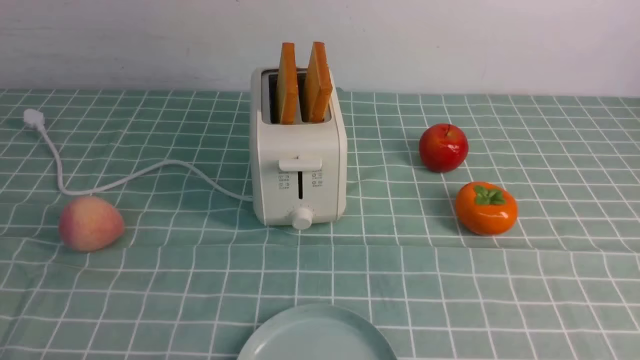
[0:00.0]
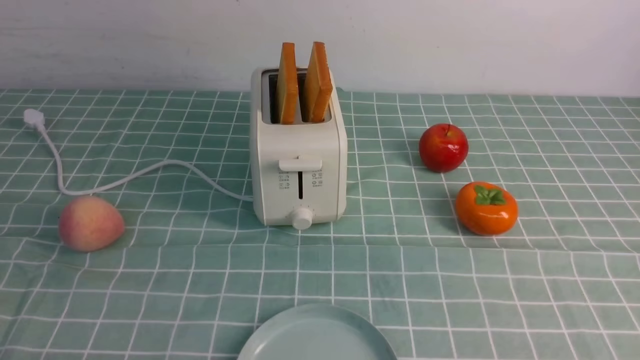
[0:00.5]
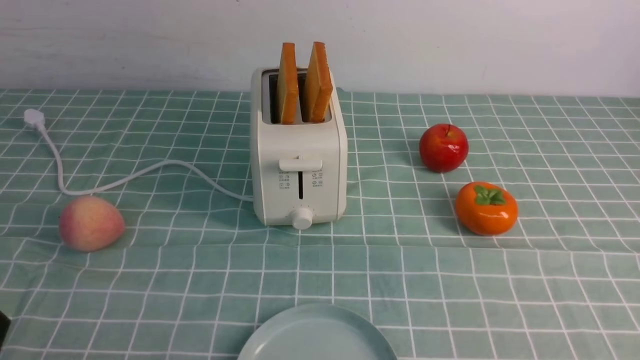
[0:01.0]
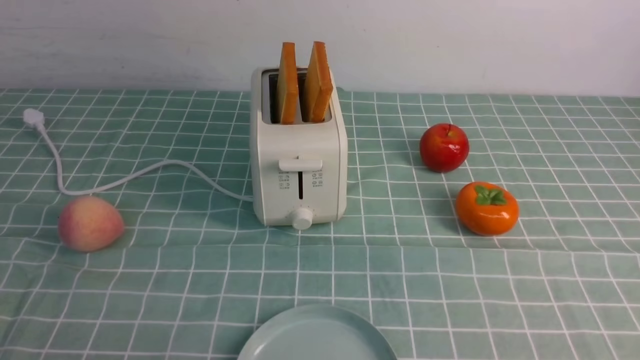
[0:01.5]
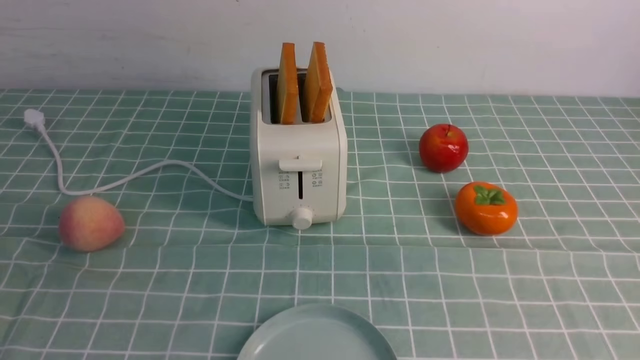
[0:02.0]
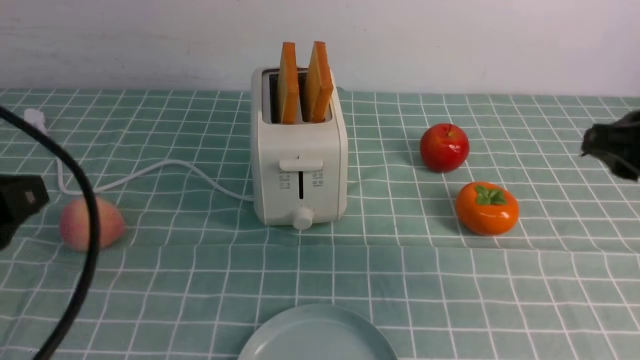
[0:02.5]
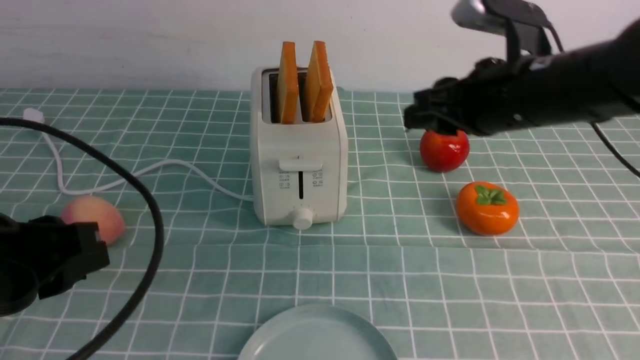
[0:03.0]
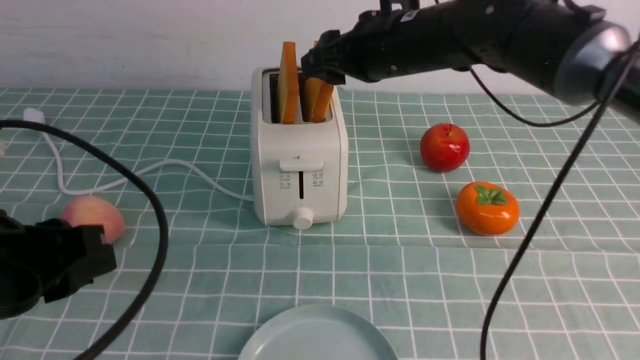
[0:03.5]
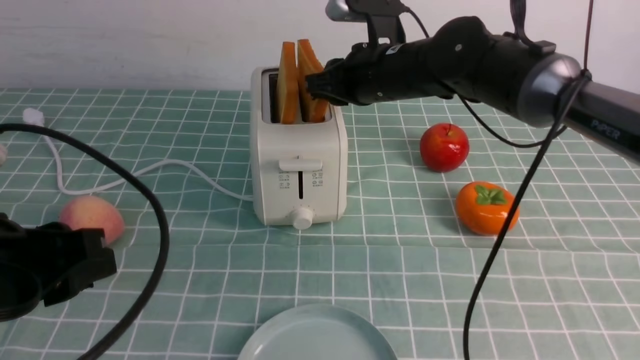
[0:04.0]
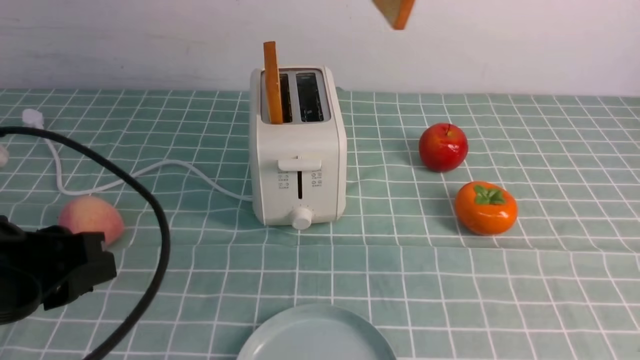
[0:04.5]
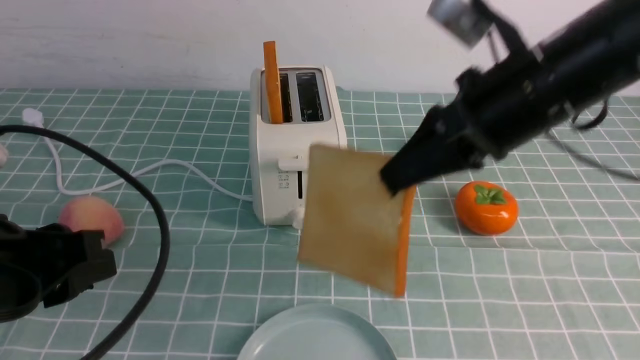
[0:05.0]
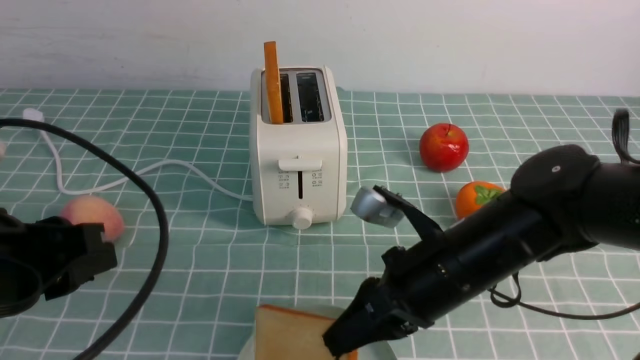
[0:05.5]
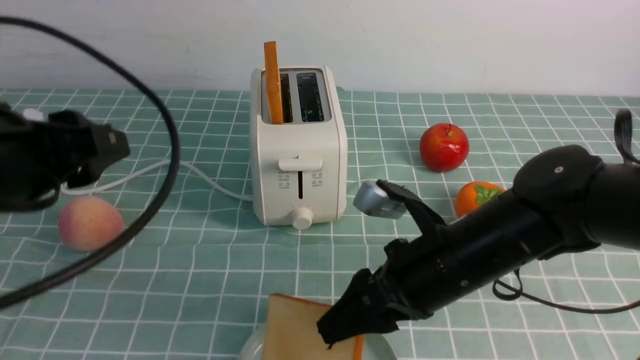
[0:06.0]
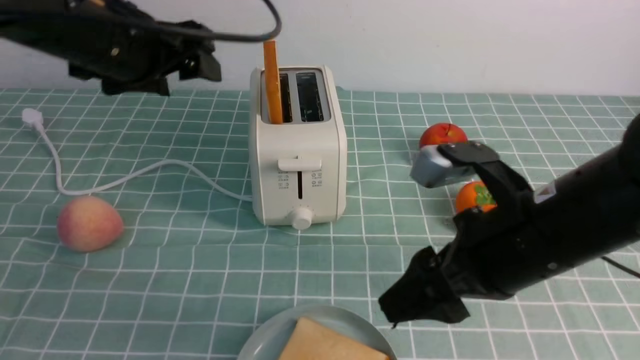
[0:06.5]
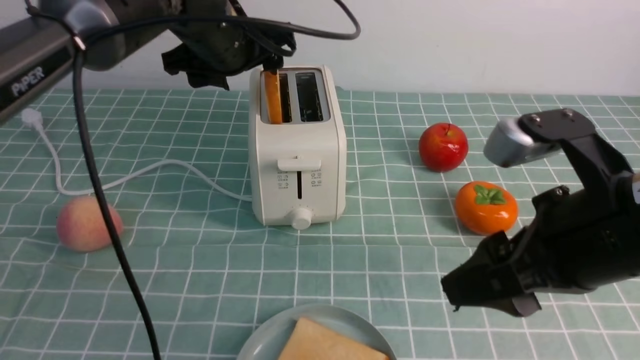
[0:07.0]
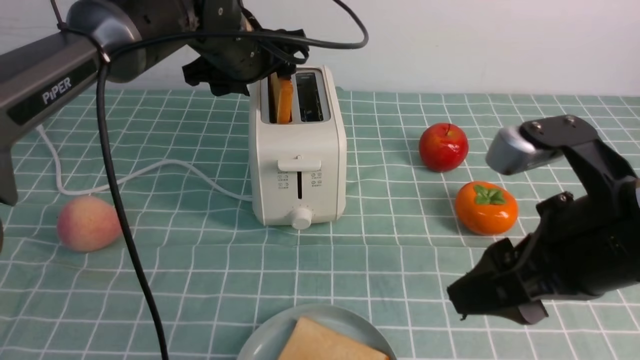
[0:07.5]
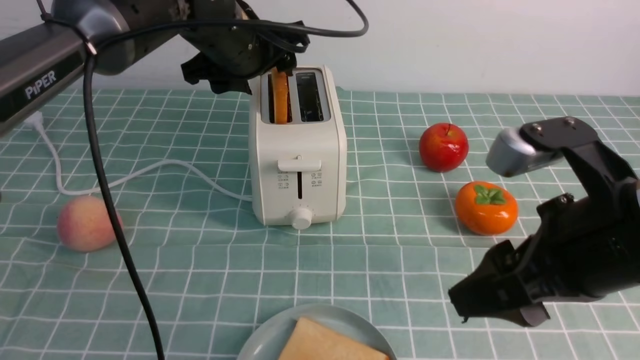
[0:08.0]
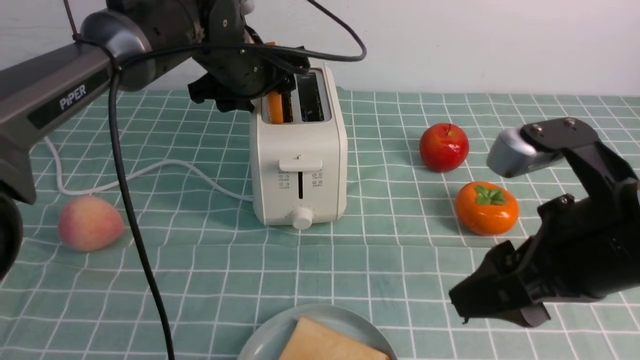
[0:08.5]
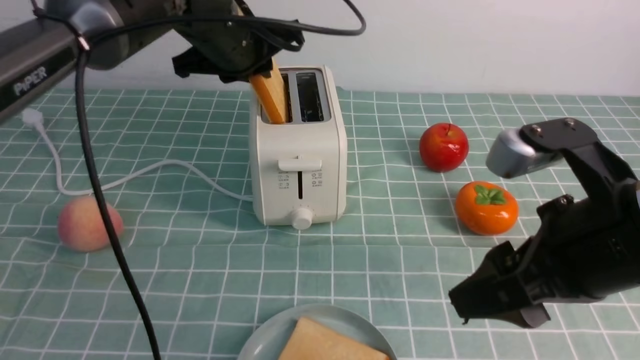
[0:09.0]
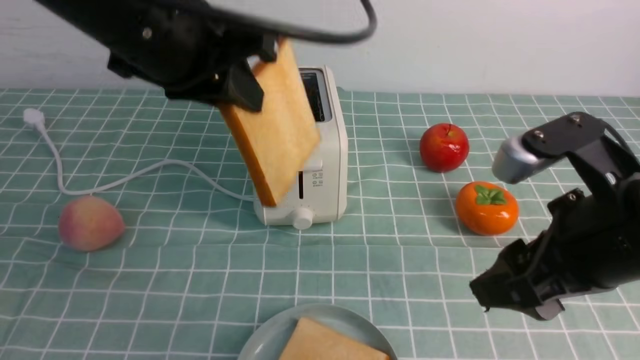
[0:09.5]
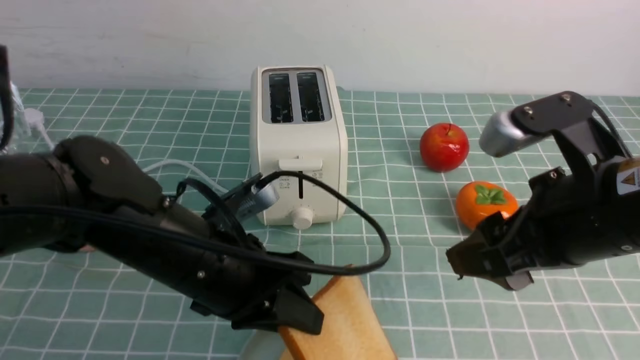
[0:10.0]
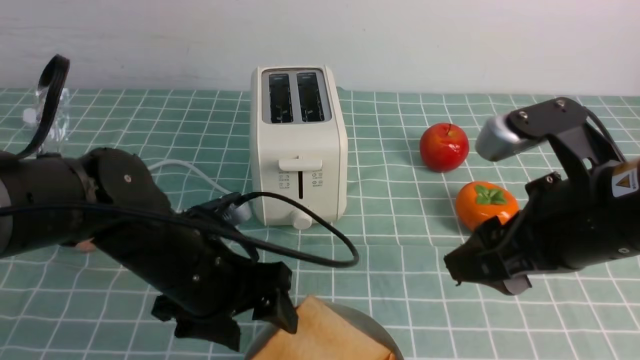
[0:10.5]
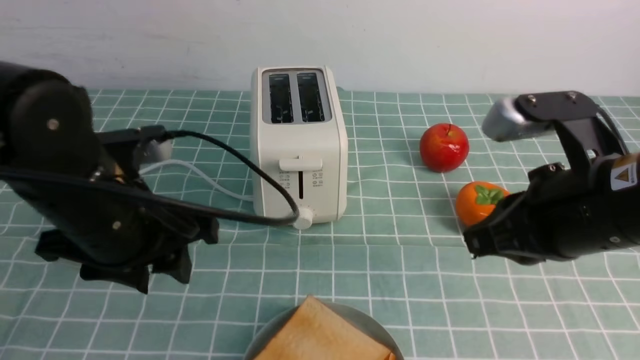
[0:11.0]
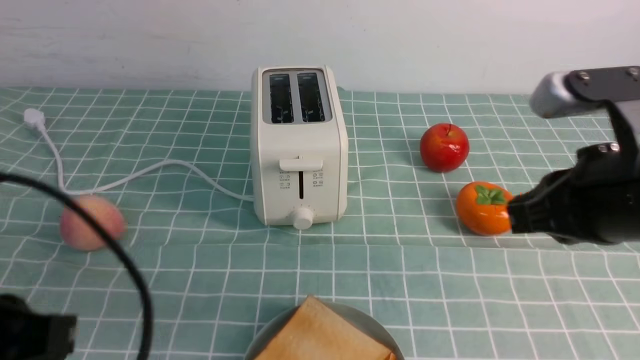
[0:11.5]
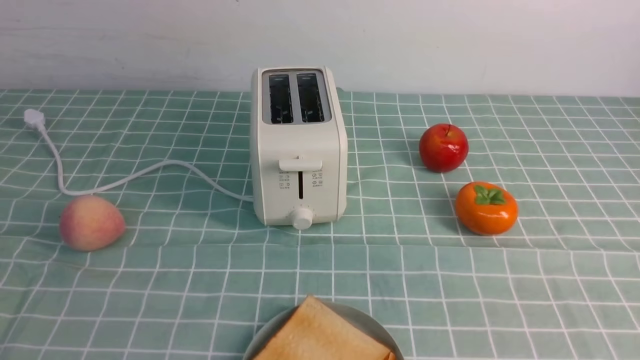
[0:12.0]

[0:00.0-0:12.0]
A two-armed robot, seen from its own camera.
Task of the whole recording: take toasted bread from bread machine on blue coffee table place on plate.
Step, 0:00.0 to 0:04.0: use the right arm to take out a slice of bread.
Step, 0:04.5 to 0:06.0: use the right arm to put a slice of bread into the plate.
Step, 0:06.5 to 0:09.0: use the left arm to take out a slice of bread.
Step, 0:09.5 to 0:10.5: use the left arm to put a slice of bread into the empty plate.
0:02.0 to 0:04.0: The left gripper moves forward and downward, approximately 15 cm; the right gripper moves forward and to the left, about 40 cm.
0:04.0 to 0:06.0: The left gripper goes approximately 5 cm forward; the right gripper heads backward and downward, covering roughly 20 cm, and opens.
0:06.0 to 0:08.0: The right gripper heads upward, to the right and backward, covering some 15 cm, while the left gripper is displaced forward and to the right by roughly 25 cm.
0:08.0 to 0:10.0: The left gripper shifts about 20 cm backward and downward, and closes its fingers.
0:10.0 to 0:12.0: The left gripper moves backward and to the left, approximately 25 cm, and opens and closes again, while the right gripper shifts some 20 cm backward and to the right, and closes up.

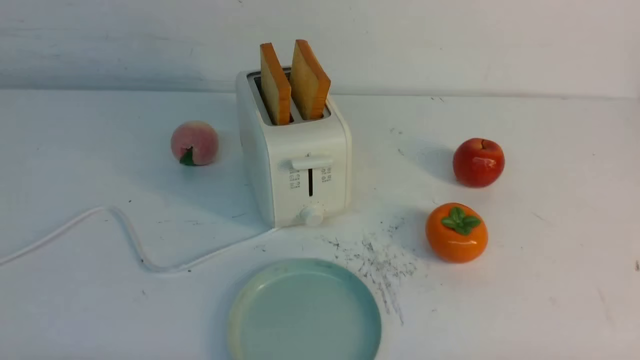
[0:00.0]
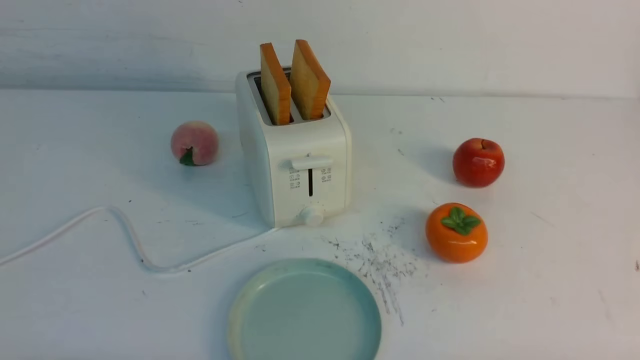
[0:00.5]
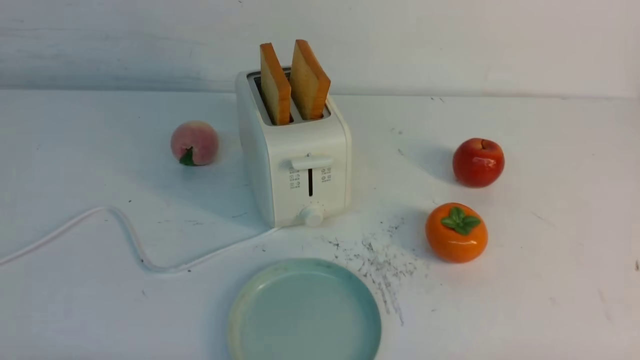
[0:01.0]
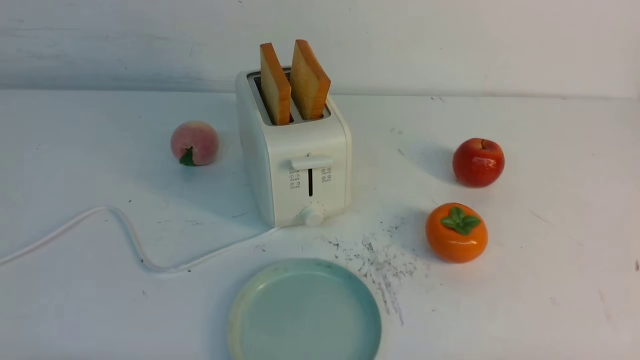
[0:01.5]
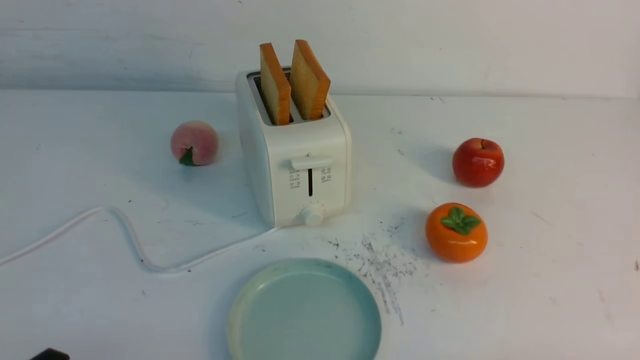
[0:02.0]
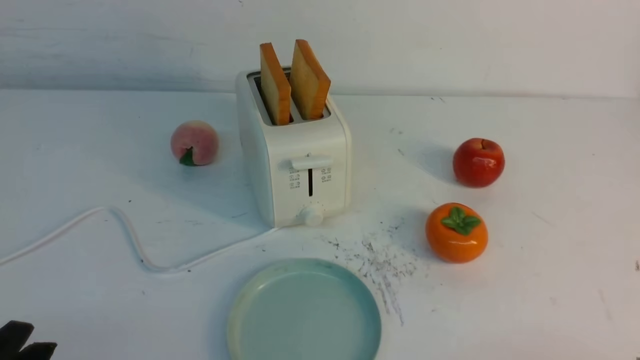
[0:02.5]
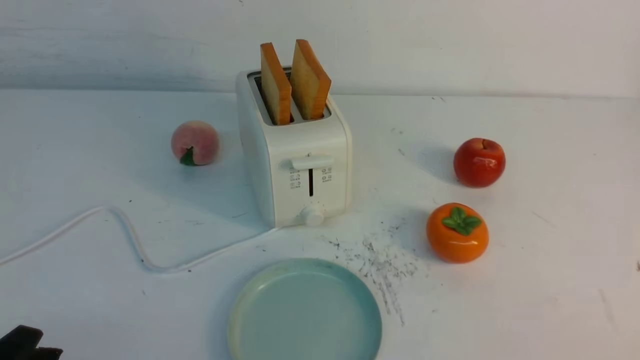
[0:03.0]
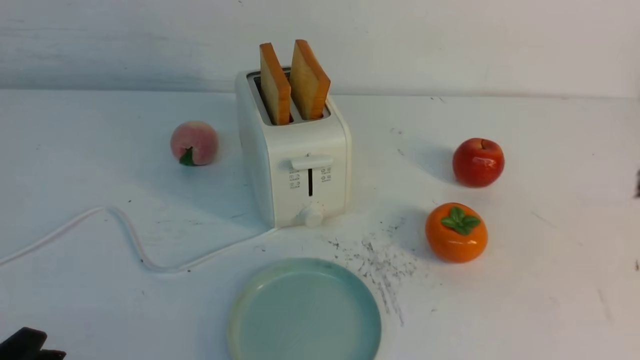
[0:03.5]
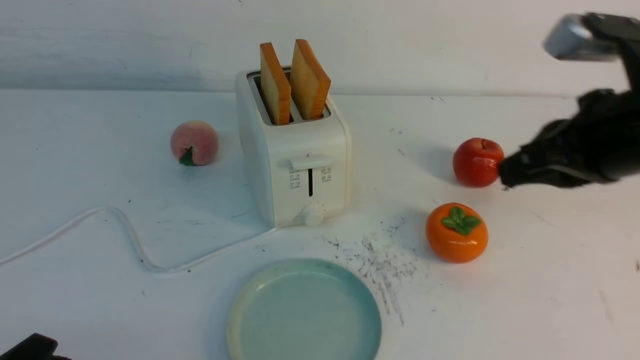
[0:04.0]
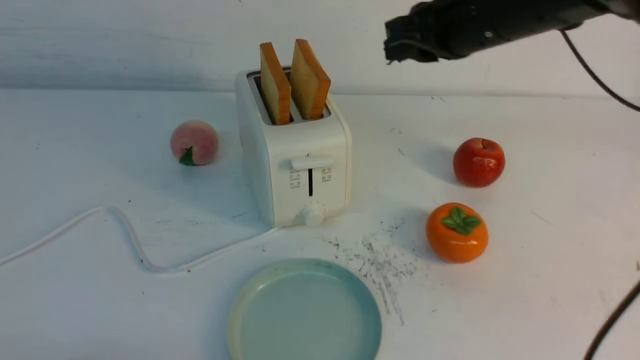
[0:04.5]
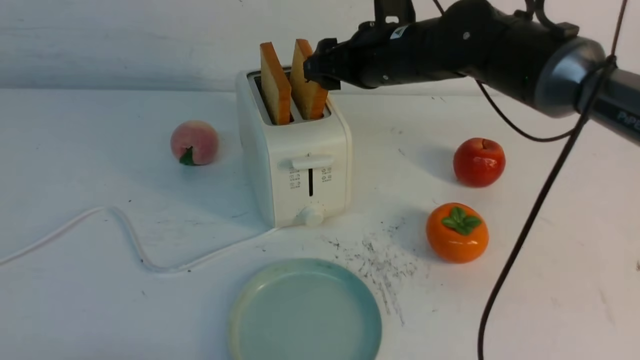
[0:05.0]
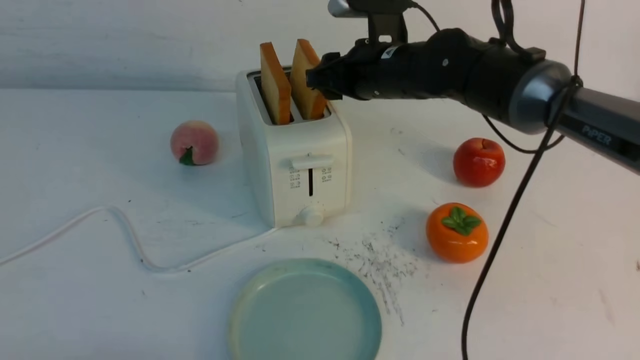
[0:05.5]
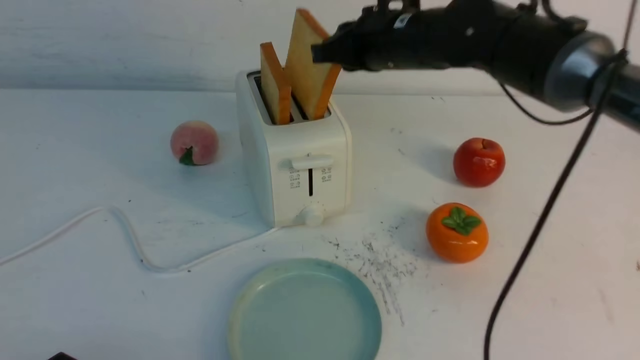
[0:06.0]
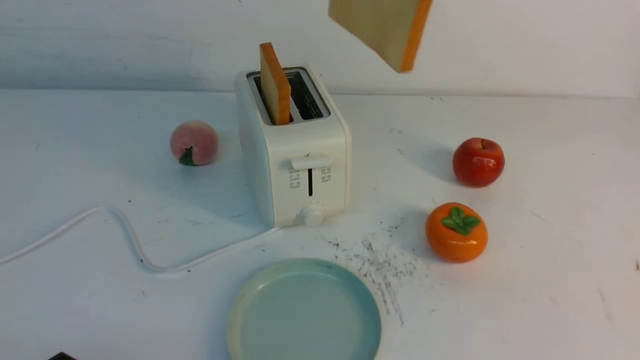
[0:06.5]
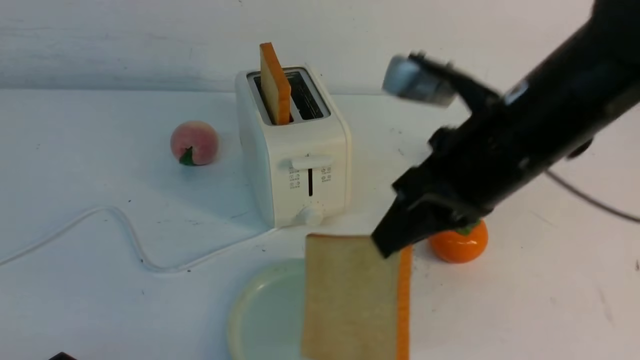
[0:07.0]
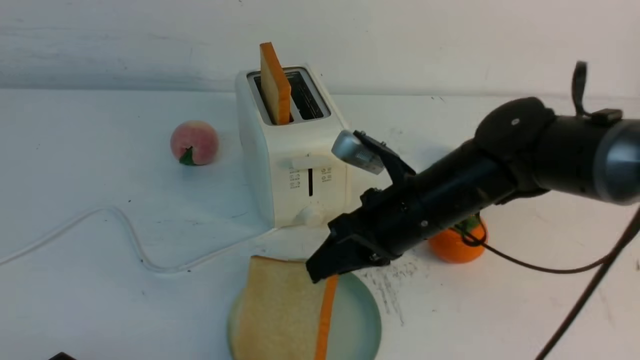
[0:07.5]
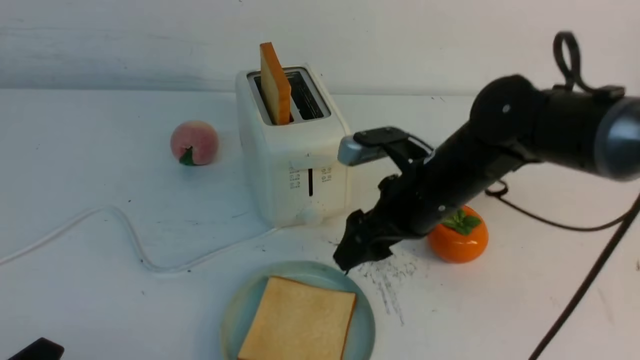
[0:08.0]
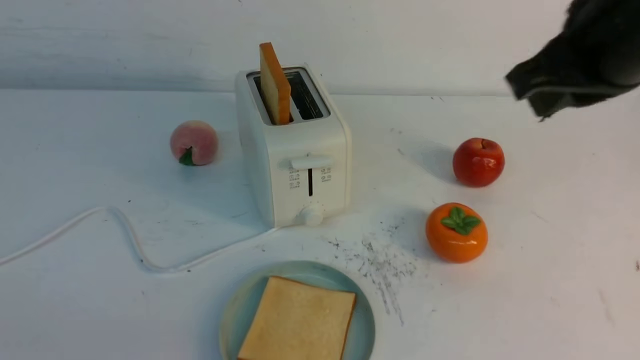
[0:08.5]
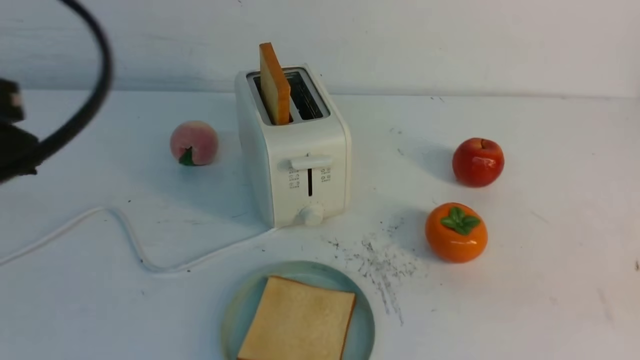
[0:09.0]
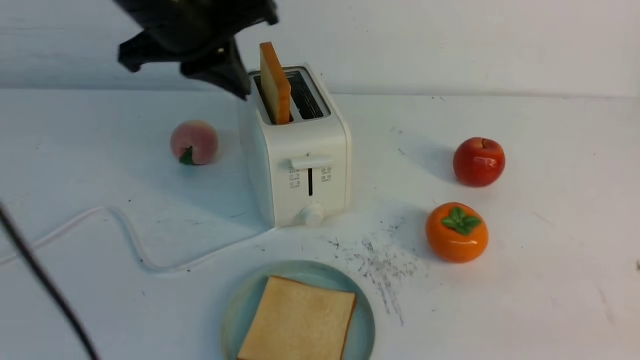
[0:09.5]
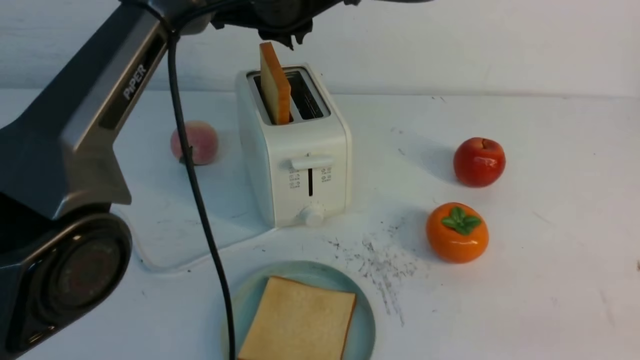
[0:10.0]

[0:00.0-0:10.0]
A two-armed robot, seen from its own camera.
Task of the whole recording: take toasted bread from bread machine on white table place on plate.
Step, 0:00.0 to 0:05.5: use the right arm to take out a slice of bread.
Step, 0:06.5 to 0:08.0: use the right arm to put a slice of bread into the plate.
0:02.0 to 0:04.0: The right gripper heads forward, upward and to the left, covering roughly 30 cm, and closes.
0:04.0 to 0:06.0: The right gripper is displaced forward and to the left by approximately 20 cm, and opens and closes again.
0:06.0 to 0:08.0: The right gripper heads downward and backward, covering approximately 15 cm, and opens its fingers.
0:08.0 to 0:10.0: The left gripper shifts some 50 cm forward, upward and to the right. Meanwhile the right gripper heads backward and to the right, covering about 35 cm, and closes its fingers.
